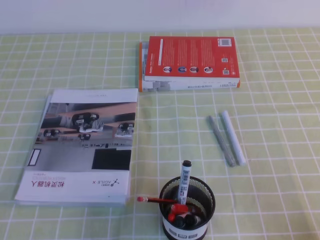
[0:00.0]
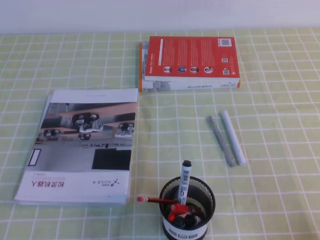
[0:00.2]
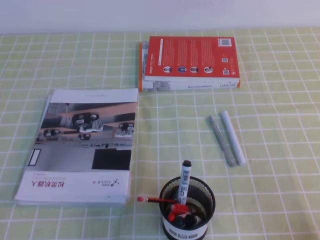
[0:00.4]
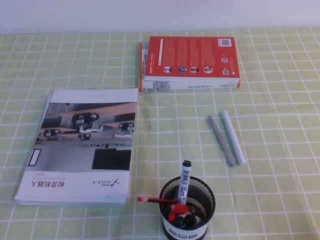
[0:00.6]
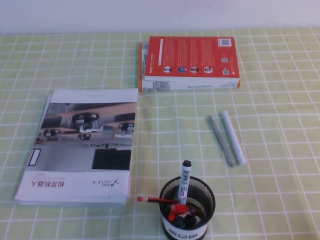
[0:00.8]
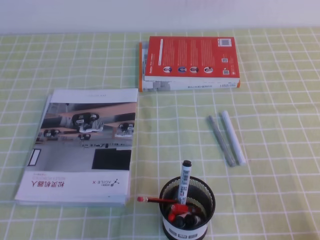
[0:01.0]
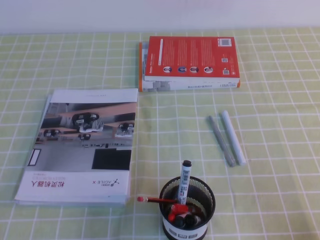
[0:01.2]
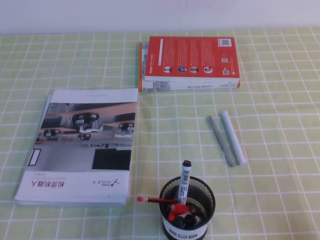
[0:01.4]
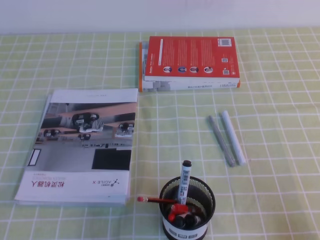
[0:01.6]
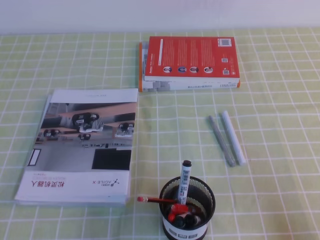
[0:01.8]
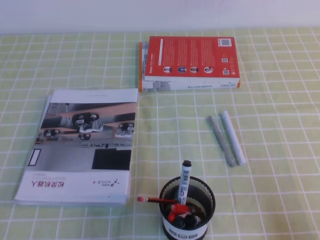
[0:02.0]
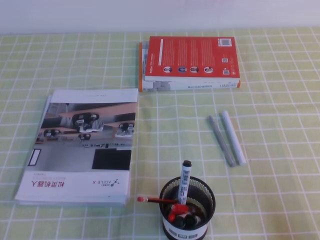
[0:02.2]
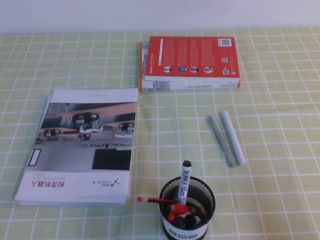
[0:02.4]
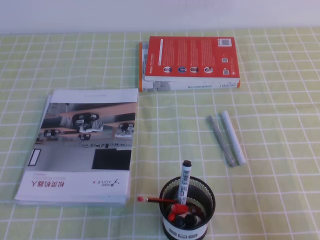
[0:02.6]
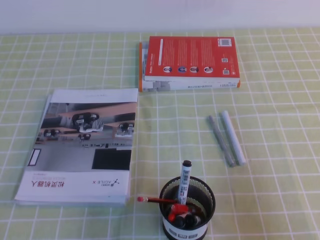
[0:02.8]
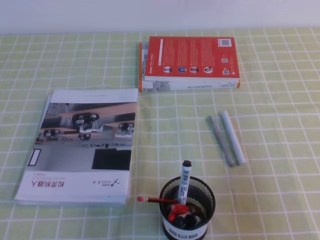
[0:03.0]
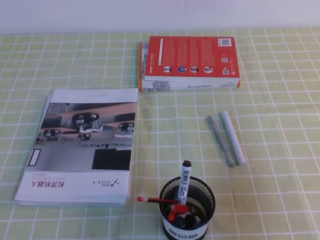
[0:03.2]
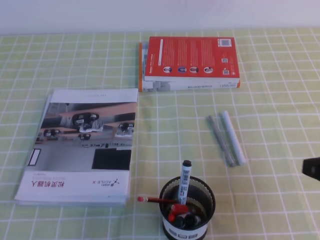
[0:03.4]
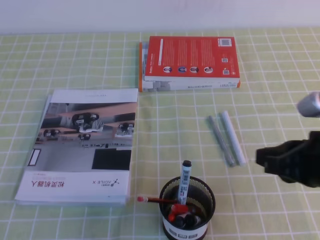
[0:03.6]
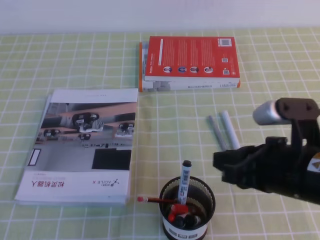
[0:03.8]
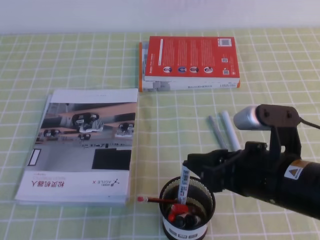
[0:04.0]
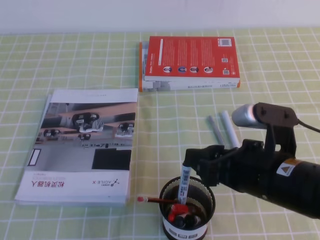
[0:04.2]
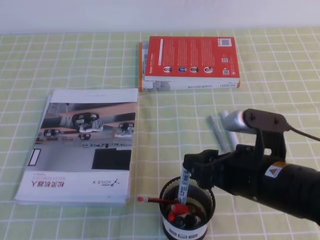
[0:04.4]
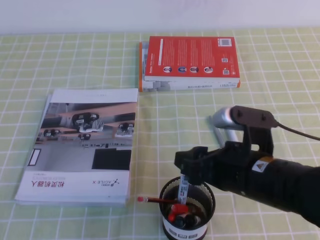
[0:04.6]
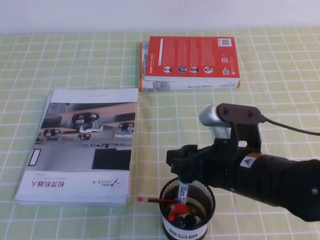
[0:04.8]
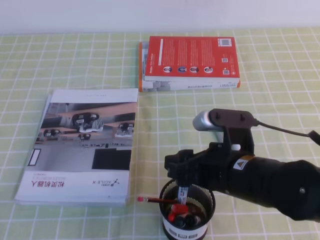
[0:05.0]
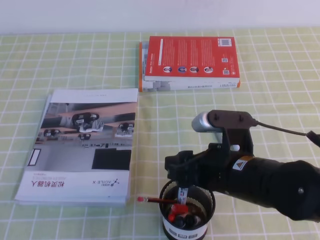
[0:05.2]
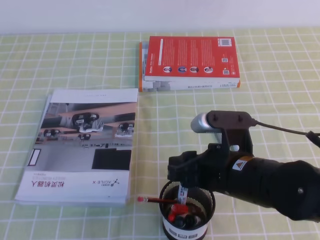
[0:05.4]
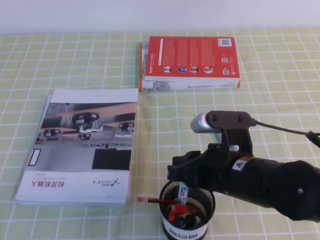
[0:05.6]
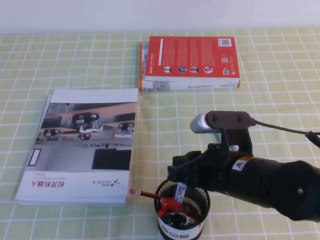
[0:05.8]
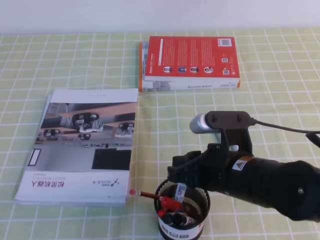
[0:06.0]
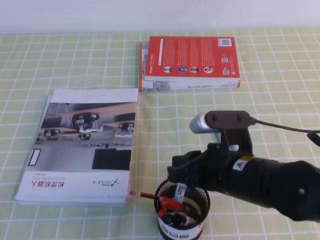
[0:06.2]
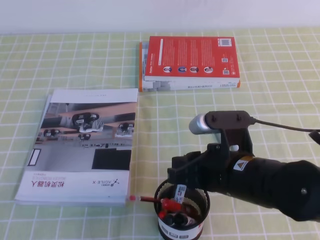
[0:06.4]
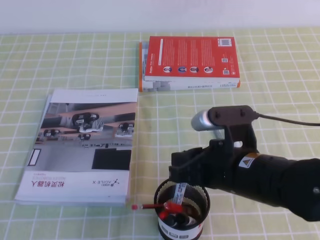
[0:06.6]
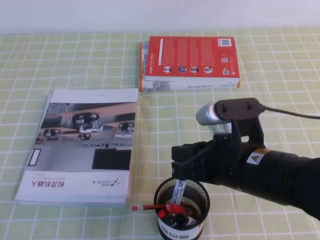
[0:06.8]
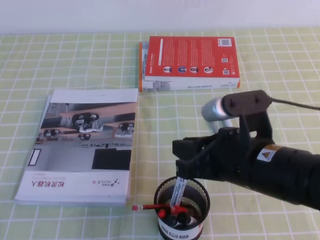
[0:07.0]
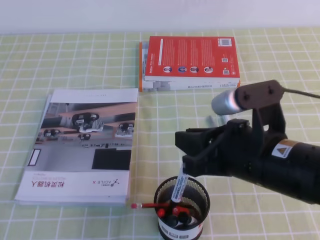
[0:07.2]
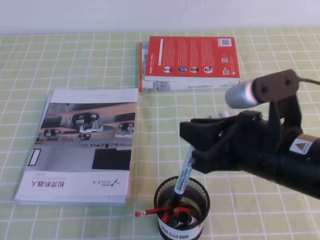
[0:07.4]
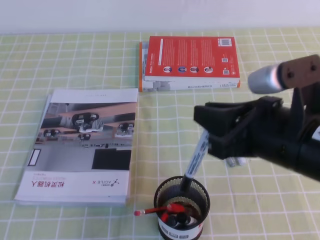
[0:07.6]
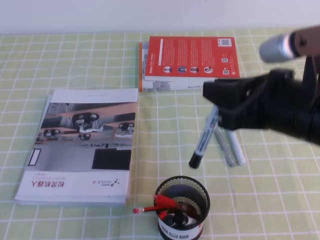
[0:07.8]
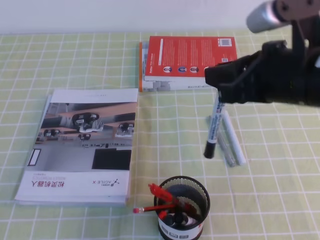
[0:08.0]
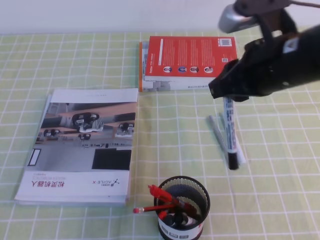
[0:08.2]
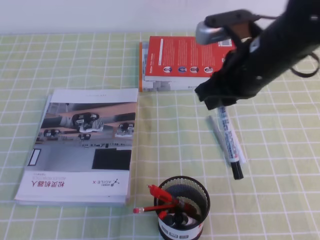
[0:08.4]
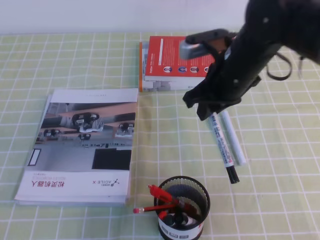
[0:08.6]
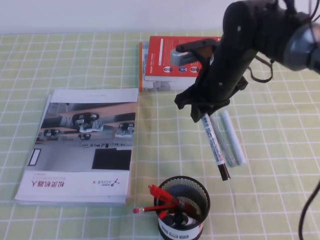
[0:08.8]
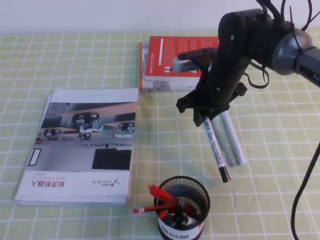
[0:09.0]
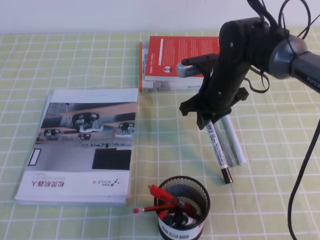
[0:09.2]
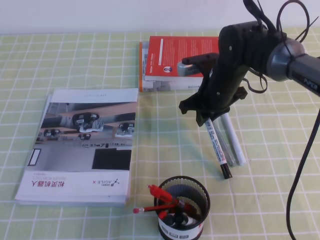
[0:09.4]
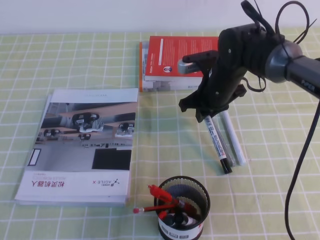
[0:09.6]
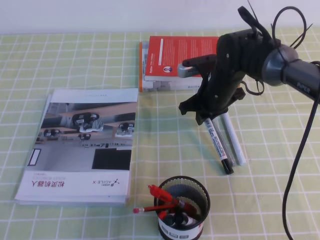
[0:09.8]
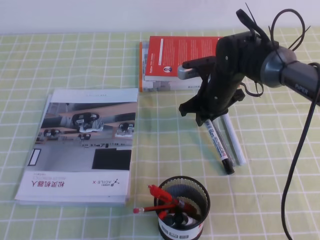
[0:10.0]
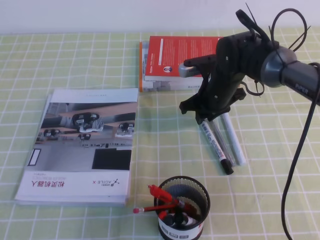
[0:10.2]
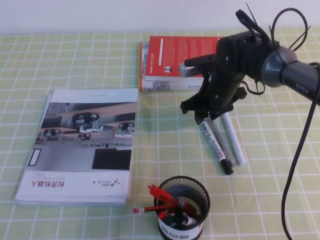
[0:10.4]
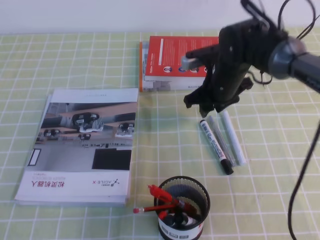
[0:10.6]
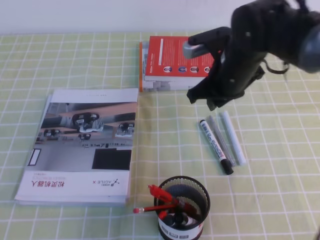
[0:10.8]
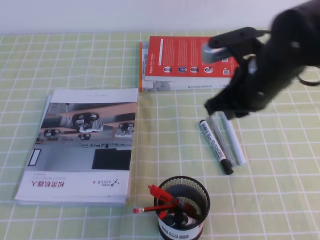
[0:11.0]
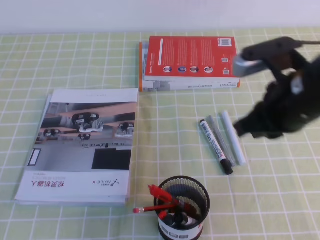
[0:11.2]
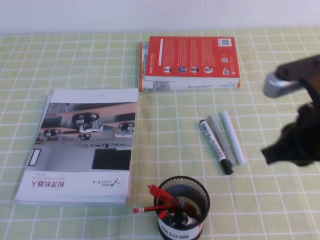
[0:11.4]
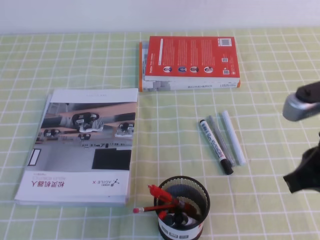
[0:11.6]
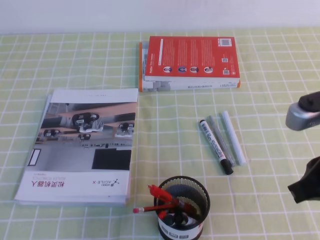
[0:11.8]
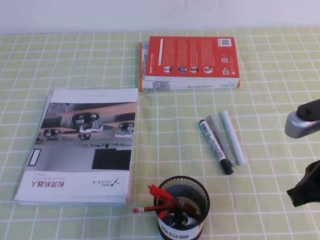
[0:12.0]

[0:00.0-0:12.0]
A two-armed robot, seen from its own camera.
0:01.6 to 0:03.0: The right gripper travels upward and forward by about 10 cm.
0:03.0 to 0:04.4: The right gripper is displaced to the left and forward by approximately 20 cm, and opens its fingers.
0:04.4 to 0:06.0: The right gripper closes.
0:06.0 to 0:07.6: The right gripper heads upward, covering about 10 cm.
0:07.6 to 0:09.0: The right gripper heads forward, covering approximately 20 cm.
0:09.0 to 0:10.4: The right gripper ends up approximately 5 cm from where it was, and opens its fingers.
0:10.4 to 0:12.0: The right gripper shifts some 30 cm backward, to the right and upward, and closes its fingers.

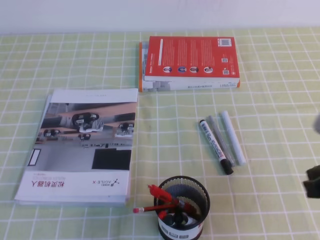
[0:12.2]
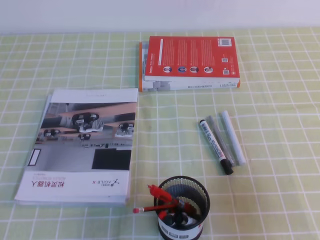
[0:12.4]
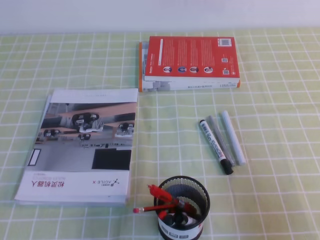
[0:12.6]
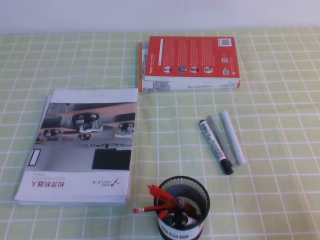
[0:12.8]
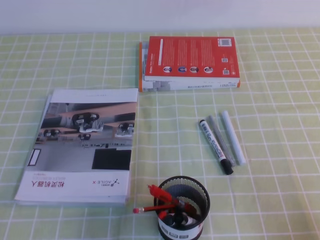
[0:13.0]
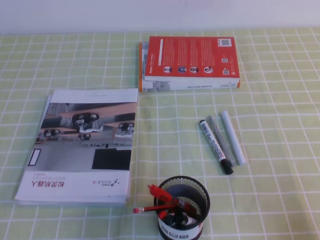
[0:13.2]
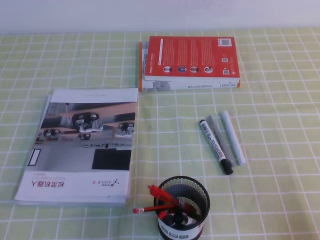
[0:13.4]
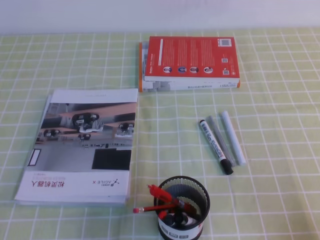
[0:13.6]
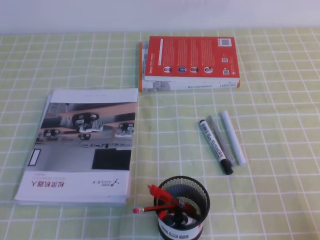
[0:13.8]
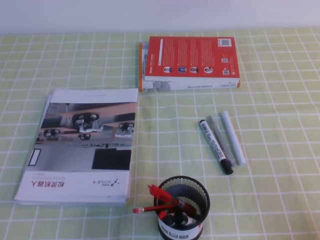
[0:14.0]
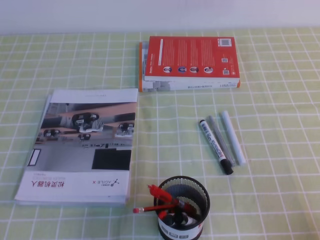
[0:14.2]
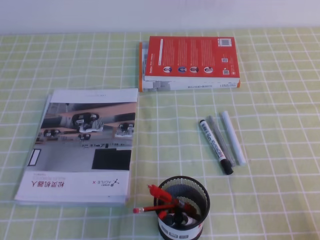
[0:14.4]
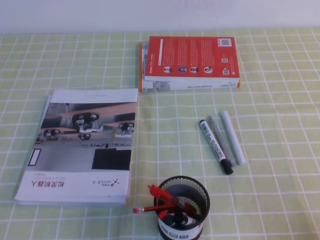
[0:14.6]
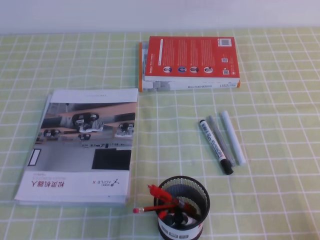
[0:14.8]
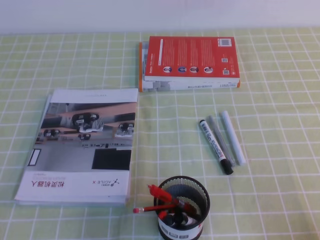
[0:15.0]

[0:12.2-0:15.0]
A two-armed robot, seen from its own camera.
Step, 0:12.2 to 0:15.0: Pick up the pen from the pen holder.
0:12.2 to 0:13.6: The right gripper shifts approximately 15 cm downward, backward and to the right.

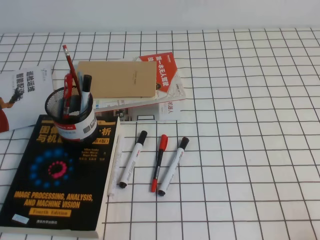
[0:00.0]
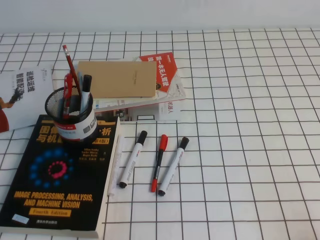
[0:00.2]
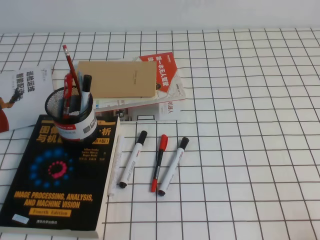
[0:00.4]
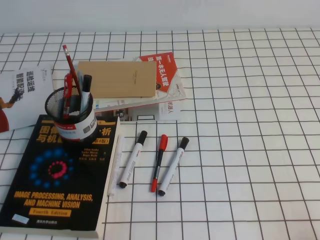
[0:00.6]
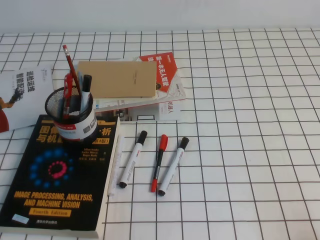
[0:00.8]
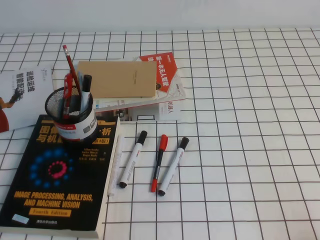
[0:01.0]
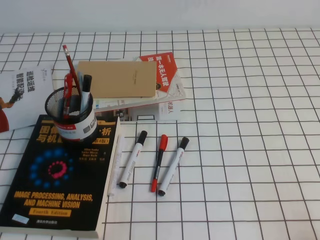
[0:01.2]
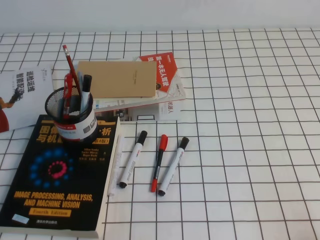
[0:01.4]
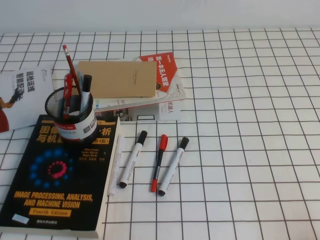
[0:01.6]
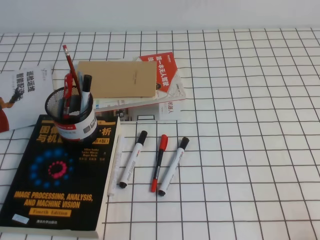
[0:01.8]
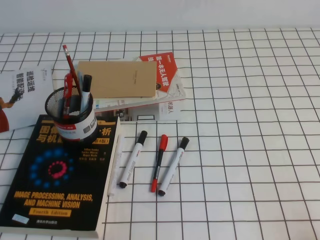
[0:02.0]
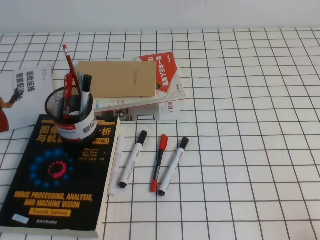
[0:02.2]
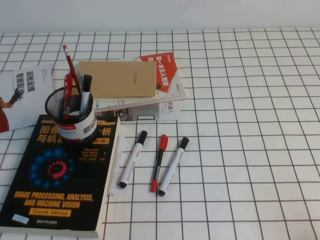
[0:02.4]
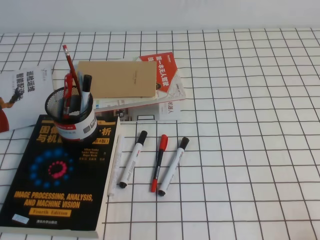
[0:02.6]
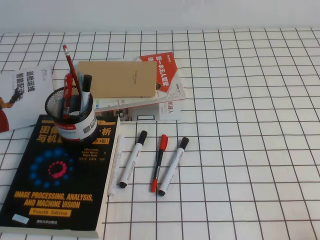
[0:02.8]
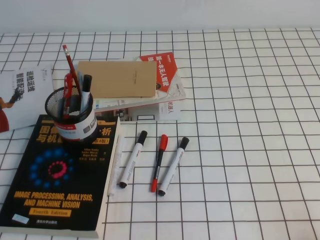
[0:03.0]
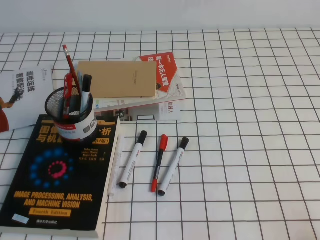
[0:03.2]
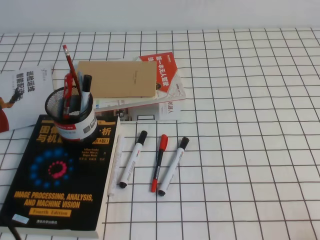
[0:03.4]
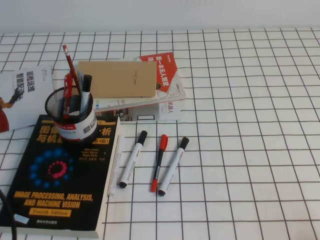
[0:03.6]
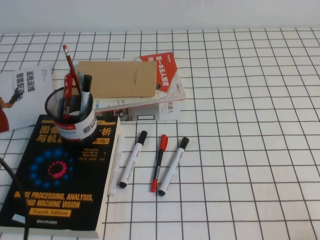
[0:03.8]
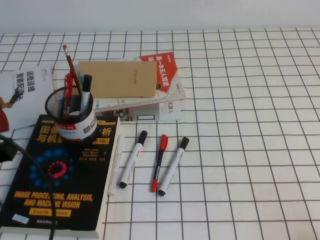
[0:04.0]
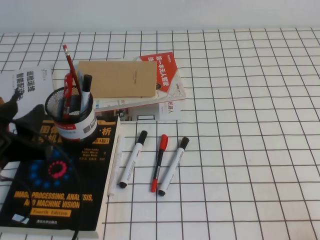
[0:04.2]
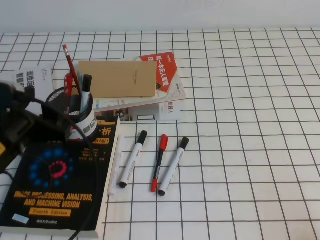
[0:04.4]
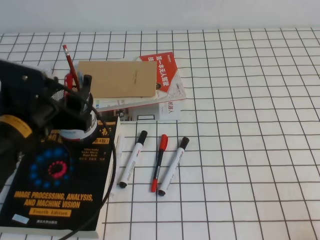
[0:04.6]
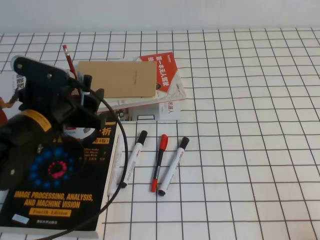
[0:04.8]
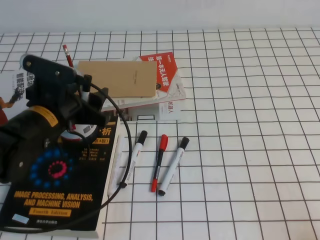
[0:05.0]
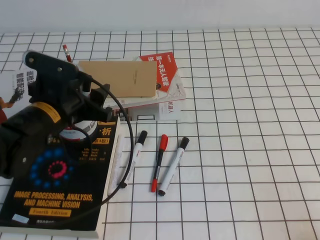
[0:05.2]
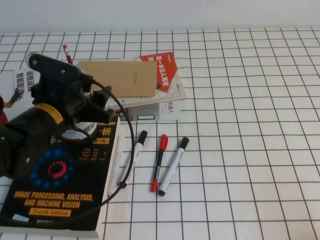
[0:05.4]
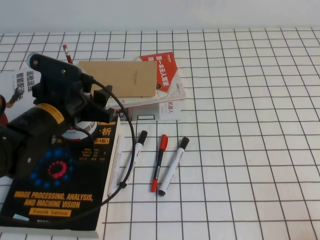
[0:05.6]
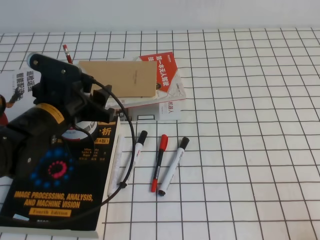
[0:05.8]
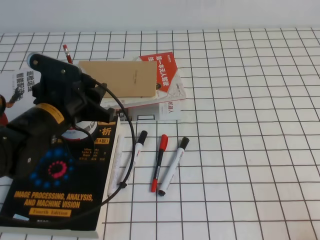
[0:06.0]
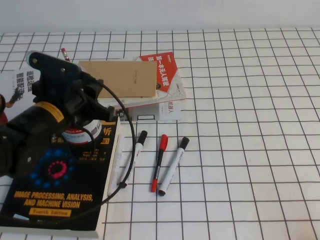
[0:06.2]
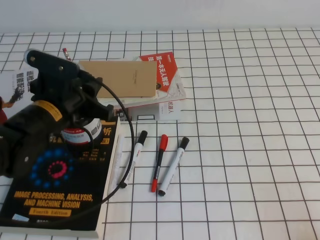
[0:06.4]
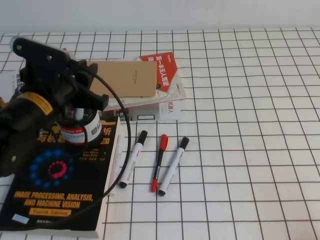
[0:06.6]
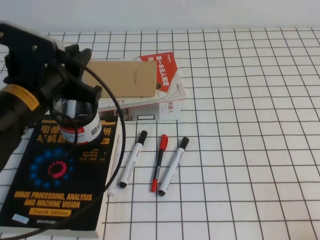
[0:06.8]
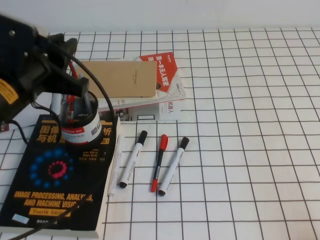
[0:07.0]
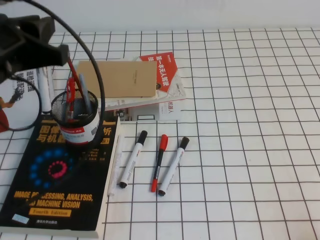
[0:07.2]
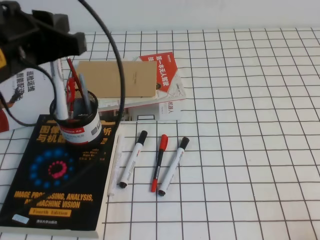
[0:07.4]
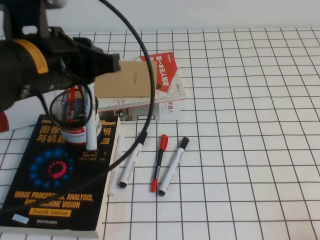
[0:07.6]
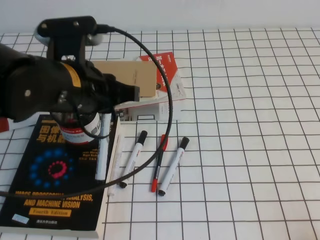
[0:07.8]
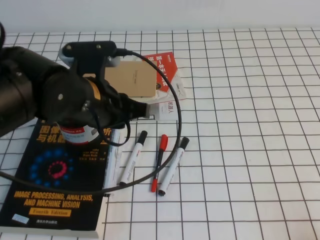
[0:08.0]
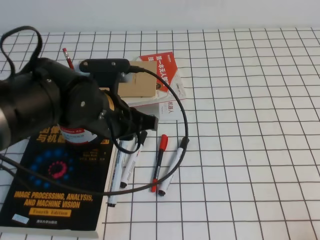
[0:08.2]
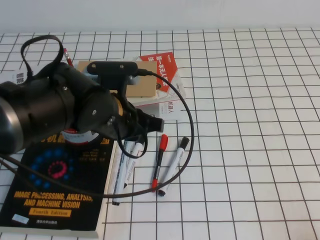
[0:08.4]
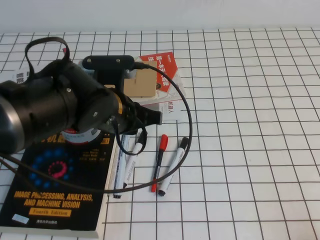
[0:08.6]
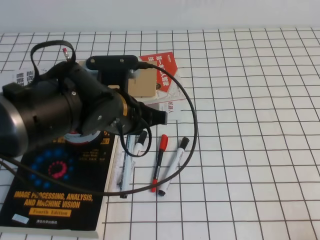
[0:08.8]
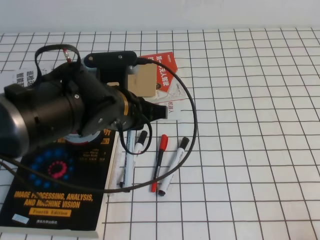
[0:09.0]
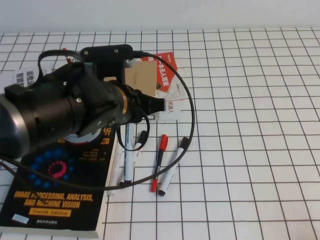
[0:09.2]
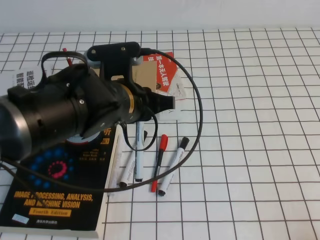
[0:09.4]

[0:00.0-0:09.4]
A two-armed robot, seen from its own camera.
0:00.0 to 0:01.6: Both grippers stay about where they are.
0:03.2 to 0:04.8: The left gripper heads forward and to the right, covering roughly 25 cm, and opens.
0:04.8 to 0:06.2: The left gripper closes.
0:06.2 to 0:07.8: The left gripper heads upward, covering some 10 cm.
0:07.8 to 0:09.4: The left gripper moves downward and to the right, roughly 10 cm.
